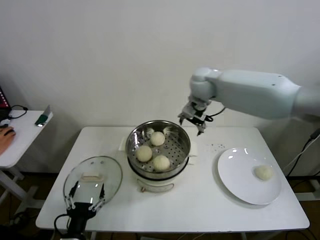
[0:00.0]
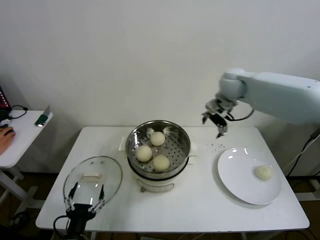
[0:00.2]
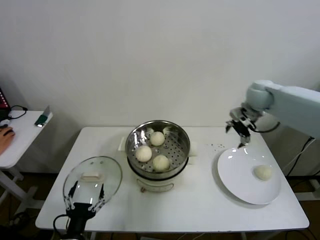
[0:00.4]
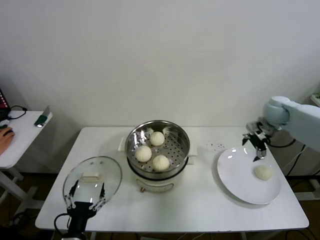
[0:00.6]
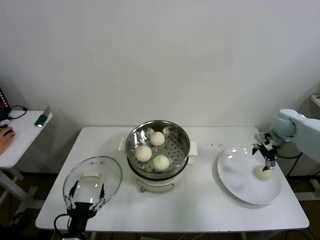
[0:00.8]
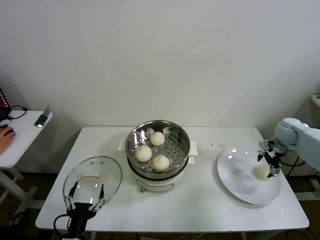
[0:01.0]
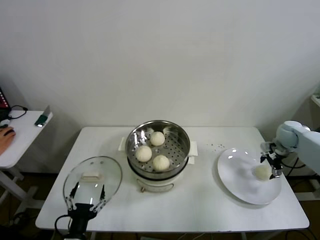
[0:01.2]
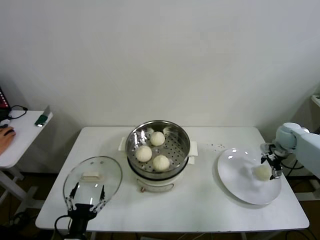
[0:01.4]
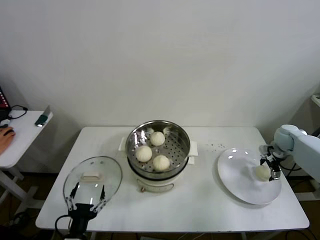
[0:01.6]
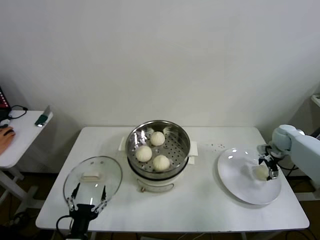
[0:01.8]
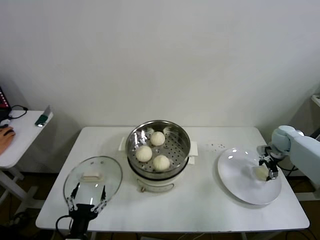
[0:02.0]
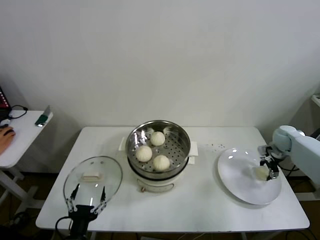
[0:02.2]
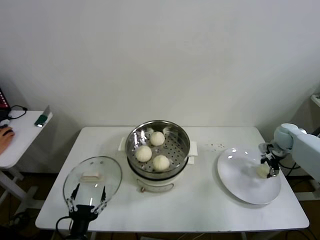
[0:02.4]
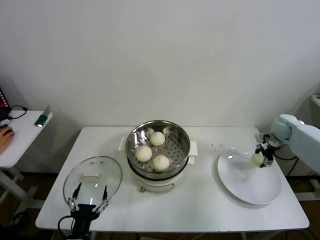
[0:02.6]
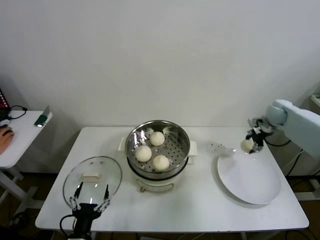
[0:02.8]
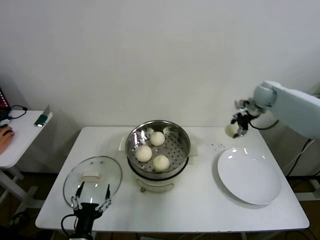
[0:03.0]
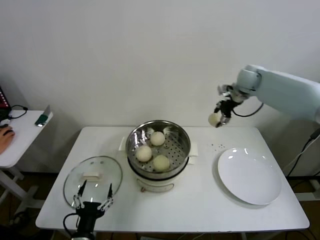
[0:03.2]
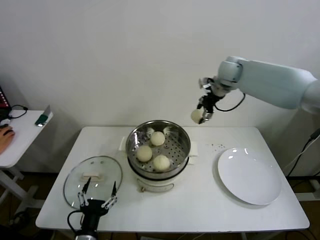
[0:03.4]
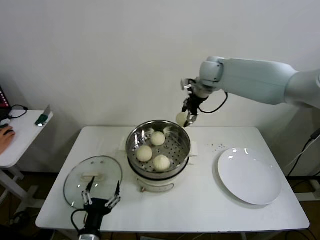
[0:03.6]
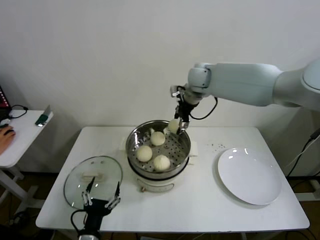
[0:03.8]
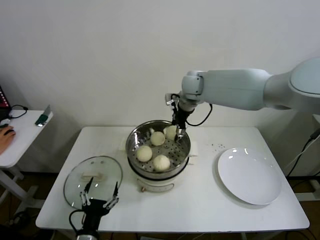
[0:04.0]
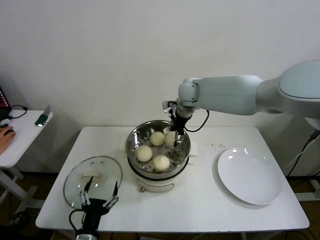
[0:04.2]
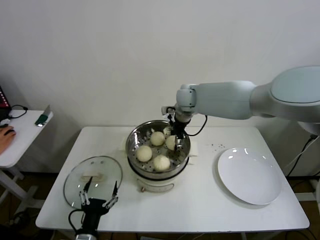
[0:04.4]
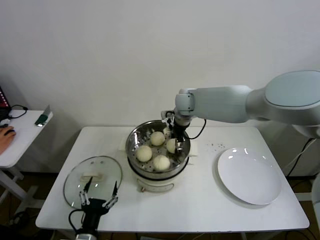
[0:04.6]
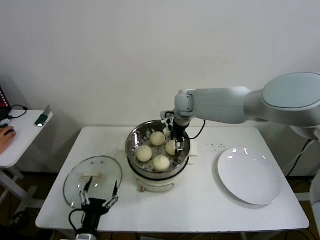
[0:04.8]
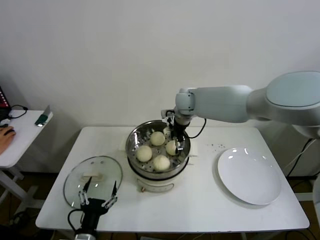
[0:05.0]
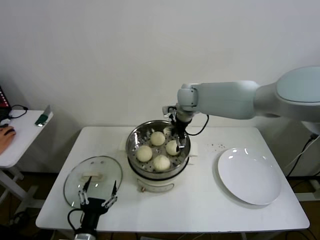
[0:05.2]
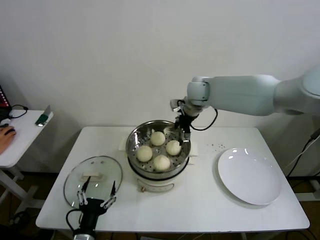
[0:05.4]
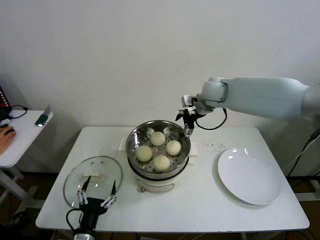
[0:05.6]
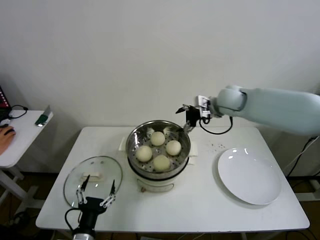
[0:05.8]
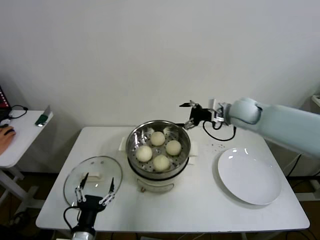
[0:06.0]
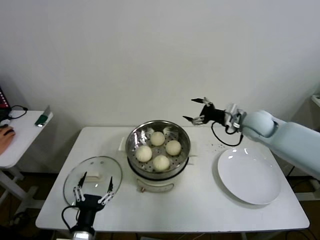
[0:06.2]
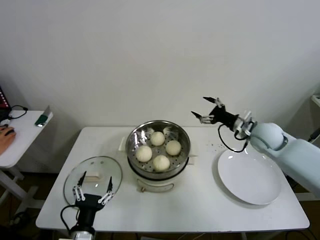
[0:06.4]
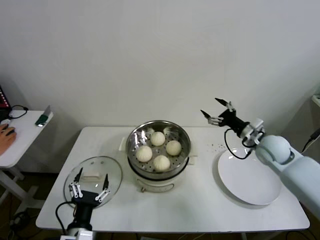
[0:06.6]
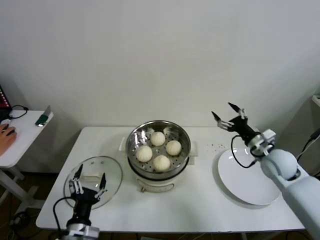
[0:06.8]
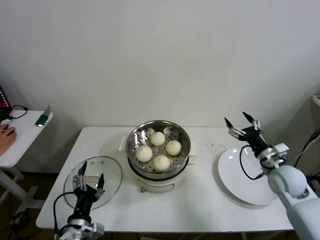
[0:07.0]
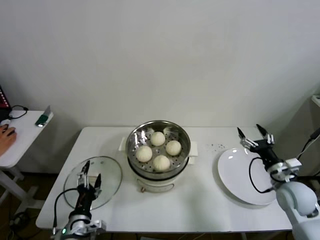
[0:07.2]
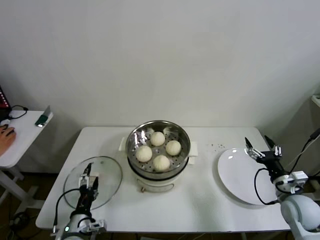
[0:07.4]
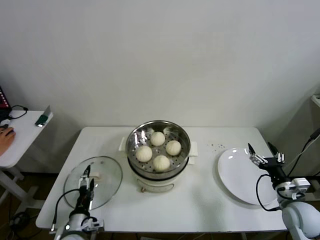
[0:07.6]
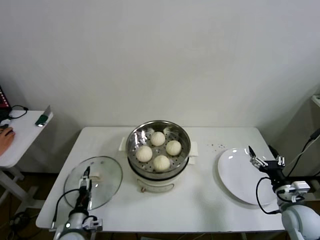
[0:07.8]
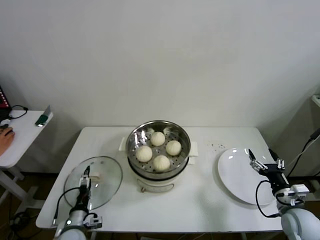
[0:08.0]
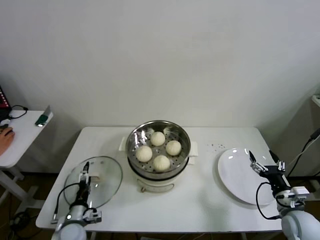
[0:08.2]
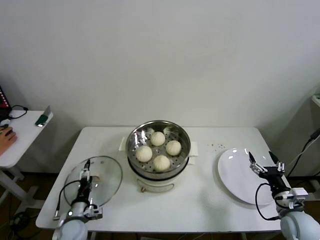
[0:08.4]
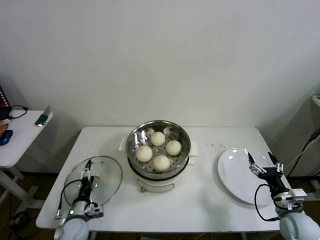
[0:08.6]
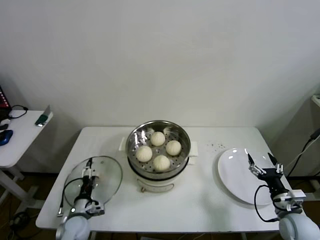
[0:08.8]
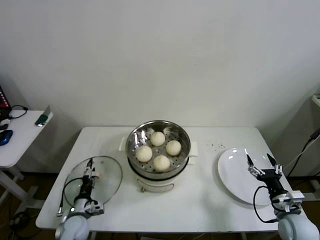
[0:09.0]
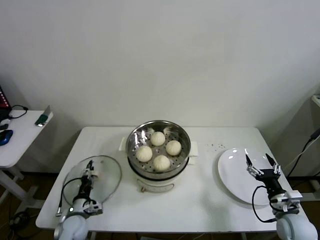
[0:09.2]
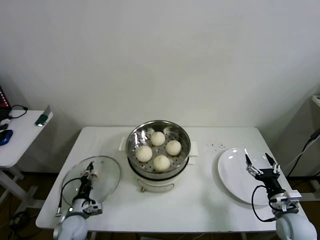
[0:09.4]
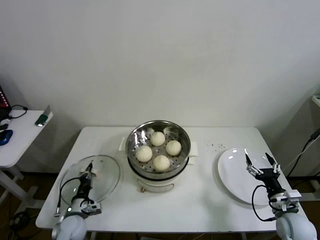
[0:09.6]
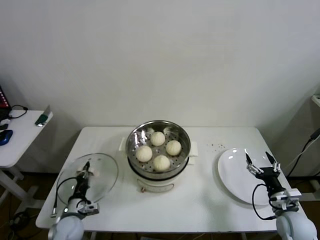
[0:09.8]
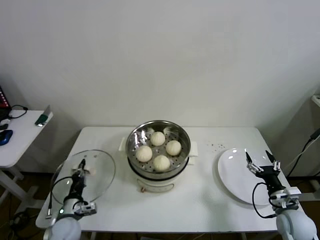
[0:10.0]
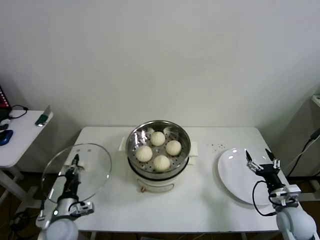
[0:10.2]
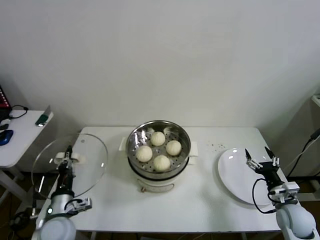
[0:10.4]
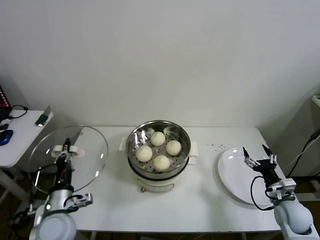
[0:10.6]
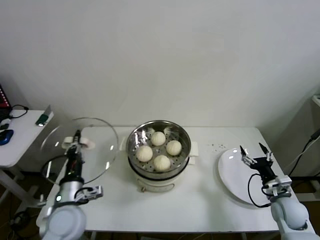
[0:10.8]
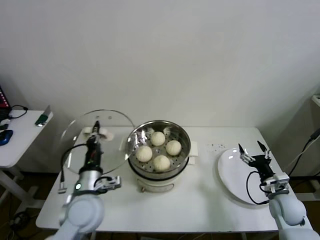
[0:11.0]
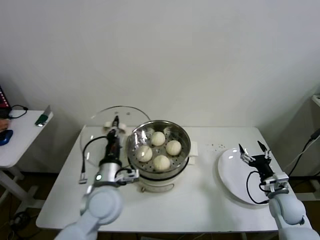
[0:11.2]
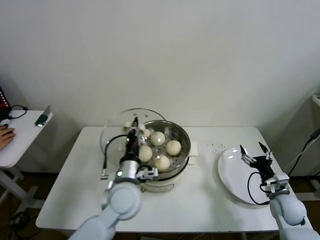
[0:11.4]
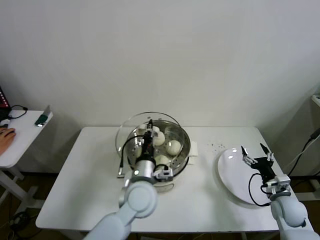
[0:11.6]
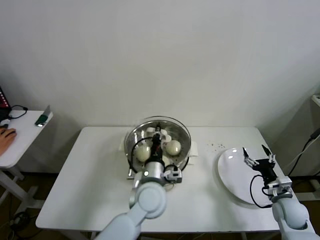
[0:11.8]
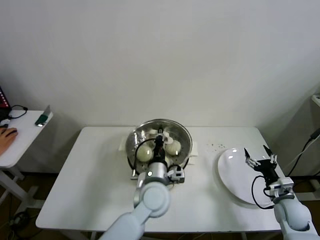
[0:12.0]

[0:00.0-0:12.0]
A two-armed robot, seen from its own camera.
Step, 0:00.0 to 0:02.0: Grasp the baozi in the plate with right gripper.
Step, 0:02.2 to 0:05.0: Place the baozi on the steamer with right gripper.
Step, 0:05.2 to 0:09.4: Grasp the pot lid with left gripper.
0:00.0 to 0:01.6: The right gripper is displaced to the right and downward by some 40 cm.
0:01.6 to 0:03.0: The right gripper goes approximately 25 cm upward, to the left and forward, and closes its fingers.
0:03.0 to 0:04.4: The right gripper heads to the left, covering some 25 cm.
0:04.4 to 0:06.0: The right gripper shifts some 20 cm to the right and backward, and opens.
0:06.0 to 0:07.6: The right gripper shifts roughly 35 cm backward, downward and to the right; the left gripper goes roughly 10 cm forward and downward.
0:07.6 to 0:09.0: The left gripper travels forward and downward by some 10 cm.
0:09.0 to 0:10.4: The left gripper is displaced upward by some 15 cm, and closes.
0:10.4 to 0:12.0: The left gripper goes approximately 30 cm to the right.

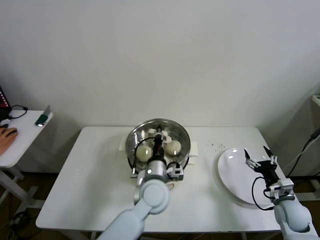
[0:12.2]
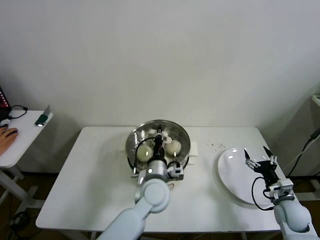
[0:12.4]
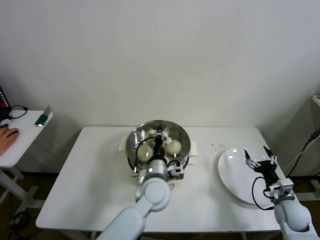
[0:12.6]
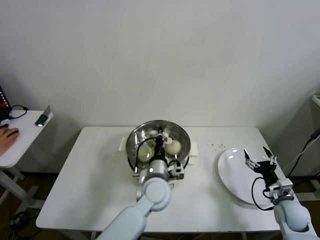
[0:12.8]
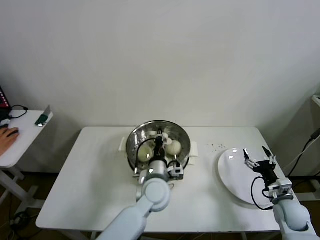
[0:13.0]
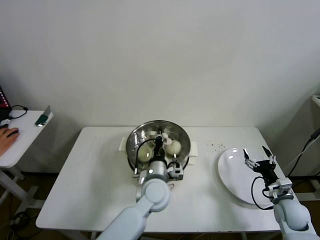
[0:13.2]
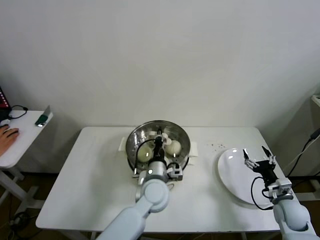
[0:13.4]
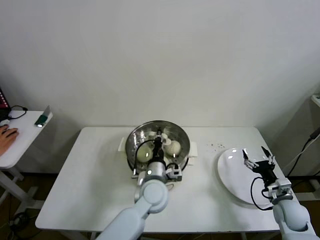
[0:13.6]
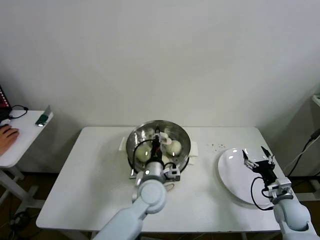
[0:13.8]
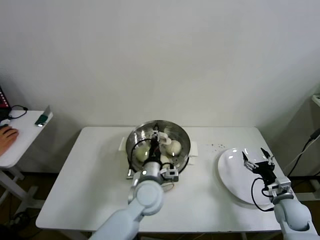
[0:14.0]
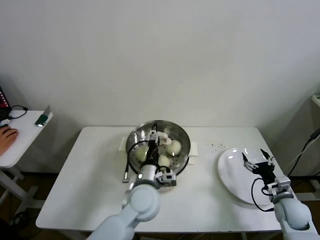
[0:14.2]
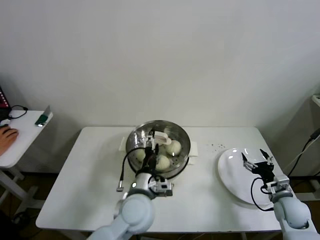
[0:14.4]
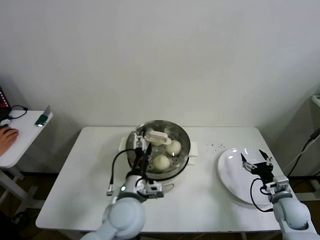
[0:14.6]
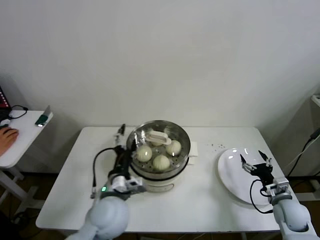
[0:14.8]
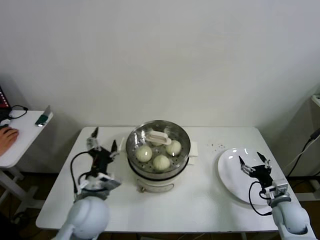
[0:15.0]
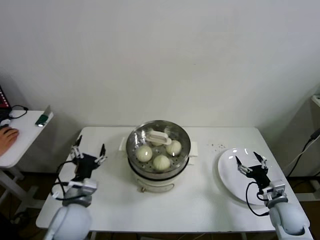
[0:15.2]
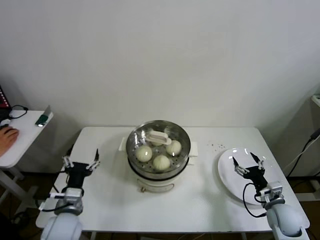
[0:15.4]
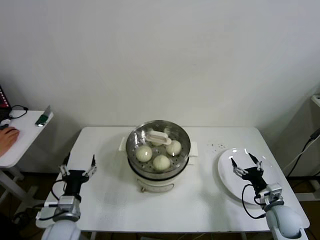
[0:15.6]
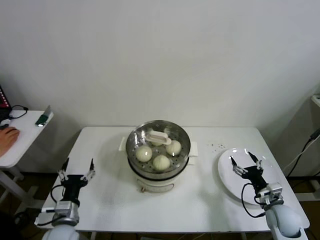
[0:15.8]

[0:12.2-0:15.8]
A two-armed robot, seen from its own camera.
Step, 0:12.2 to 0:14.2: Place the pot lid on the steamer with left gripper.
0:12.2 to 0:14.0: The left gripper opens.
0:14.0 to 0:15.8: The left gripper shifts approximately 25 cm to the left, and opens up.

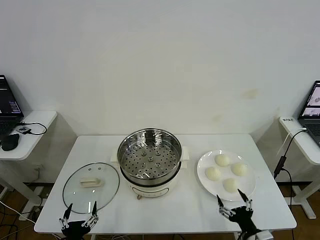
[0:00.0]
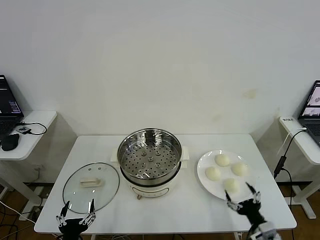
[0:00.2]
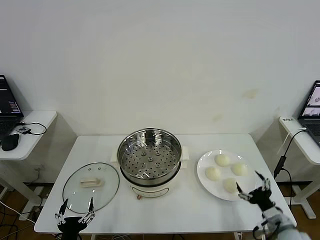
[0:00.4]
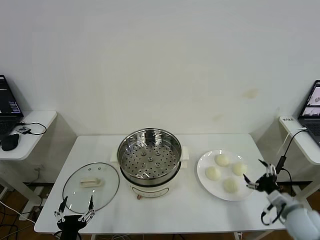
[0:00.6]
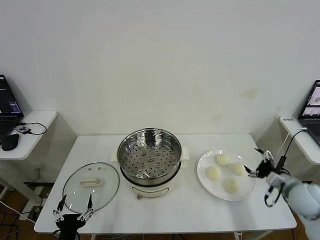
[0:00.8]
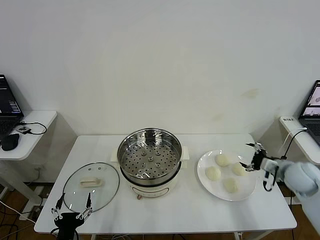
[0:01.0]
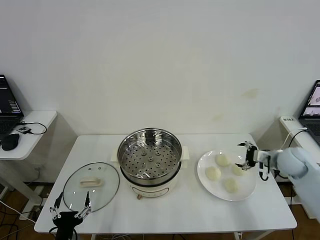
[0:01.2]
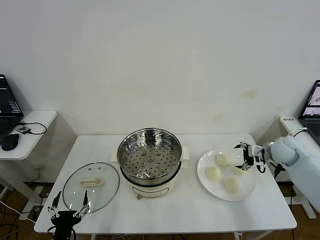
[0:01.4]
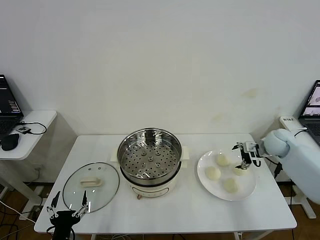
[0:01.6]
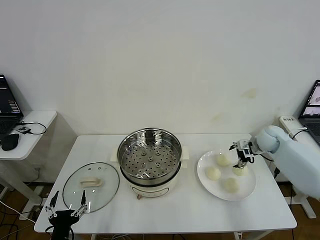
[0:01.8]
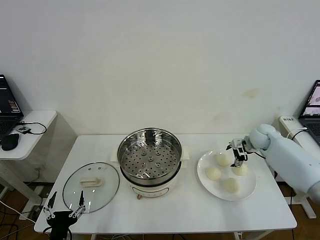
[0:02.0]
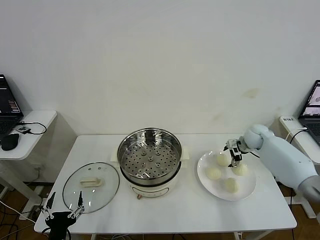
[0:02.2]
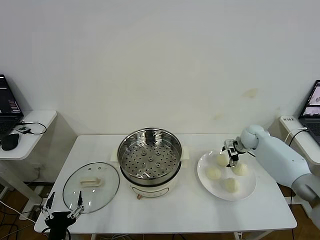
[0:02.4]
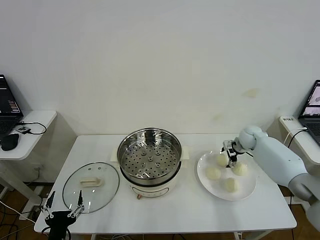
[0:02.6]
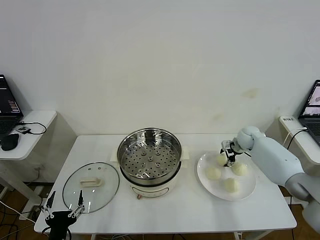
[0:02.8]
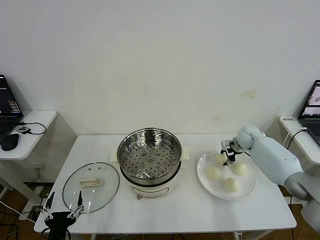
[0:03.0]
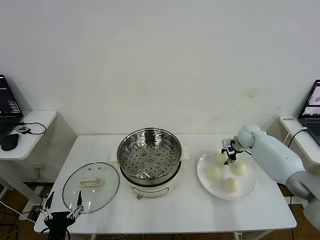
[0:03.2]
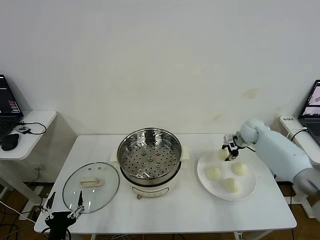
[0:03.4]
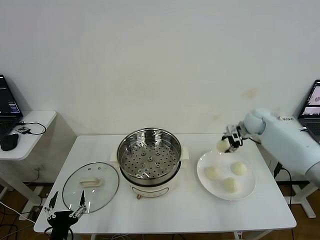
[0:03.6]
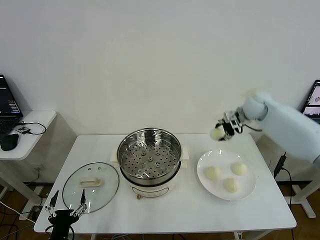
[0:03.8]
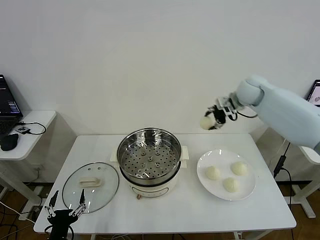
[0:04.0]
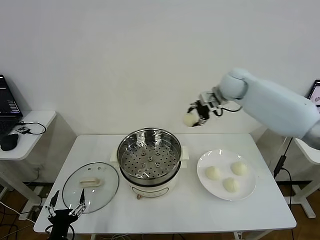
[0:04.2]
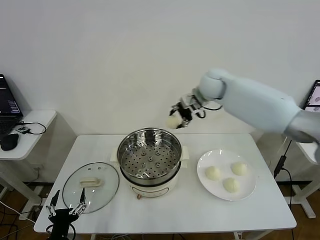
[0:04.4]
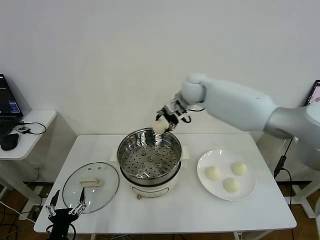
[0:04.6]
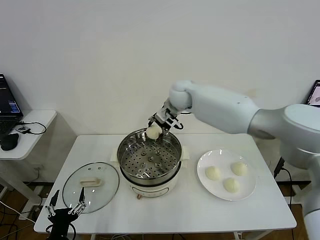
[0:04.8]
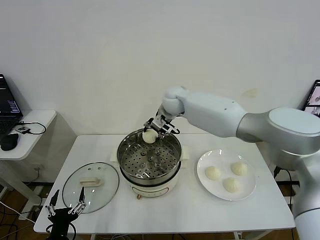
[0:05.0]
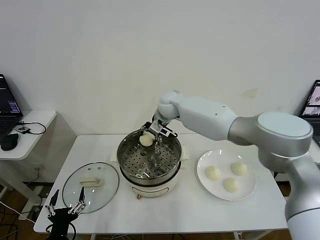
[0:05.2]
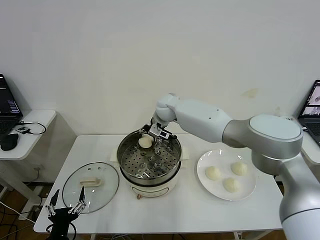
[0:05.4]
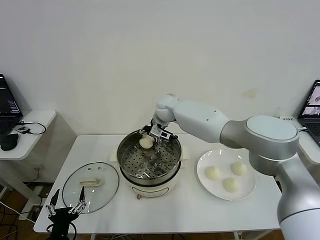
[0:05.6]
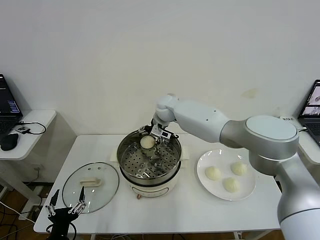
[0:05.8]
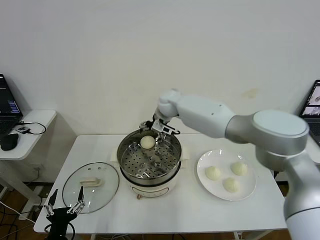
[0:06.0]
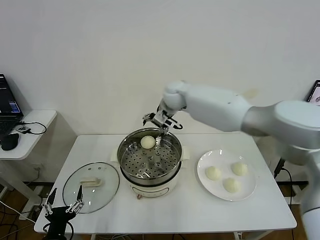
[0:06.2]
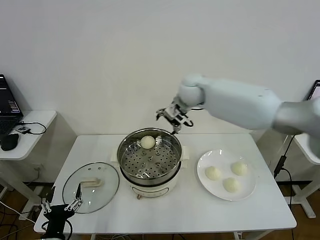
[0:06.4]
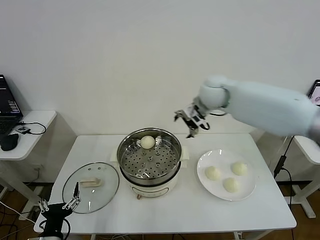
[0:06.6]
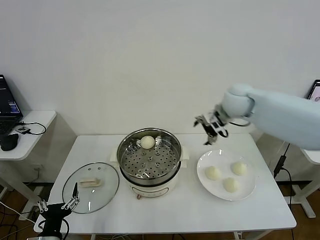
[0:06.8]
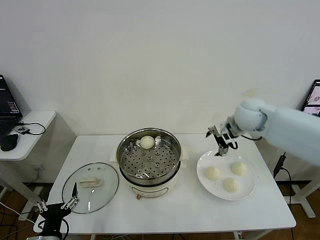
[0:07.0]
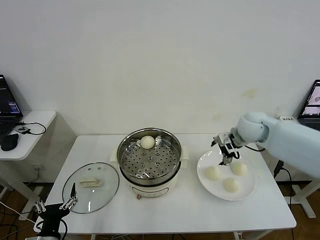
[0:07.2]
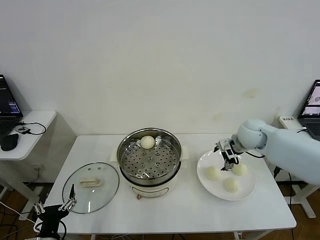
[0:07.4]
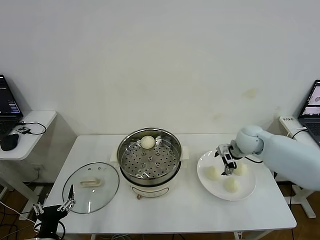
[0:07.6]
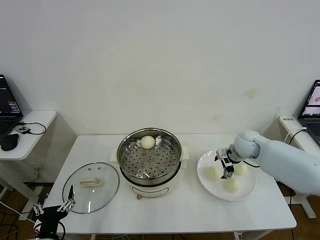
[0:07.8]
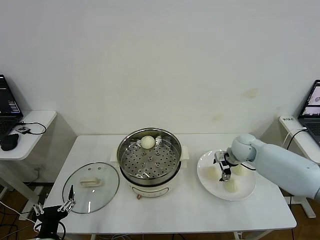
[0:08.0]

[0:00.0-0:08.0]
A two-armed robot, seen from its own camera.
Step, 0:00.0 to 0:03.0: Grasp the baozi in the plate with right gripper.
Step, 0:03.2 to 0:05.8: Place the baozi on the steamer with right gripper.
0:01.6 to 0:03.2: The right gripper moves forward, to the left and downward, some 10 cm, and closes.
0:03.2 to 0:04.8: The right gripper goes some 35 cm to the left and upward.
0:04.8 to 0:06.4: The right gripper changes place by some 5 cm, and opens its fingers.
0:06.4 to 0:08.0: The right gripper is displaced to the right and downward by some 30 cm.
